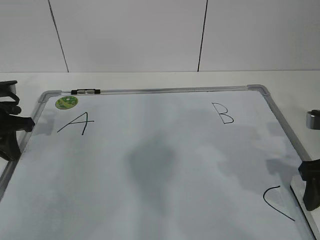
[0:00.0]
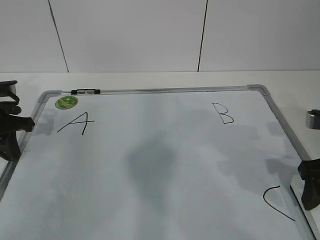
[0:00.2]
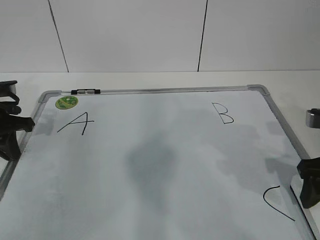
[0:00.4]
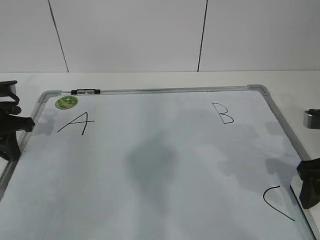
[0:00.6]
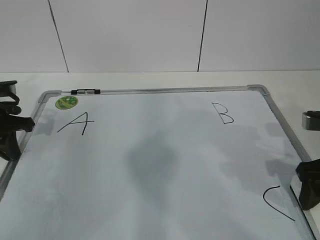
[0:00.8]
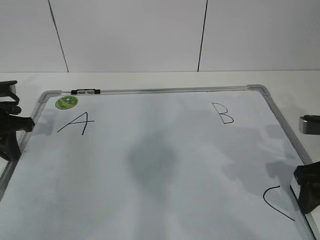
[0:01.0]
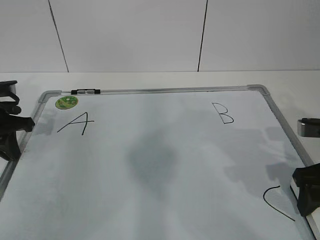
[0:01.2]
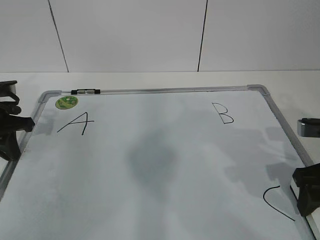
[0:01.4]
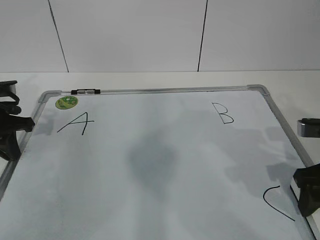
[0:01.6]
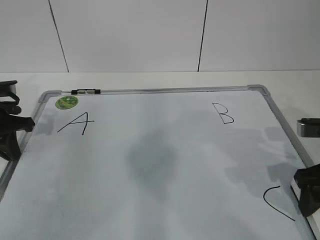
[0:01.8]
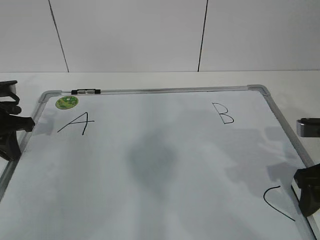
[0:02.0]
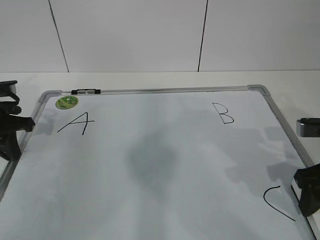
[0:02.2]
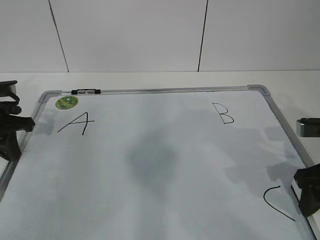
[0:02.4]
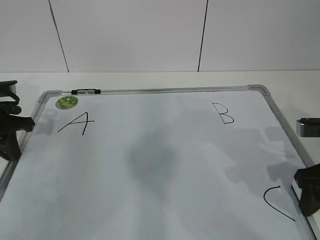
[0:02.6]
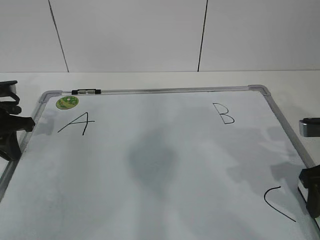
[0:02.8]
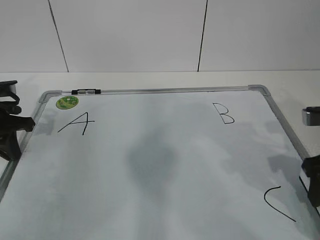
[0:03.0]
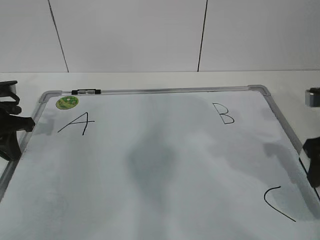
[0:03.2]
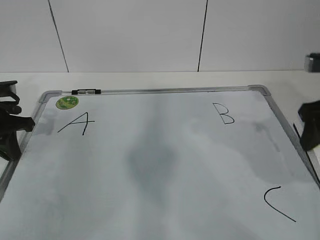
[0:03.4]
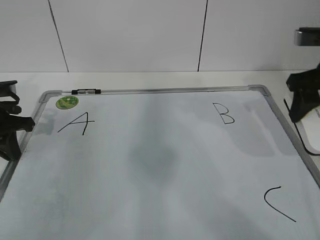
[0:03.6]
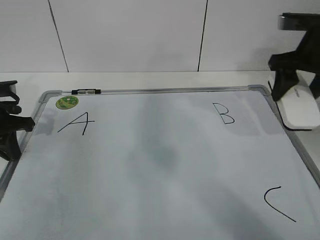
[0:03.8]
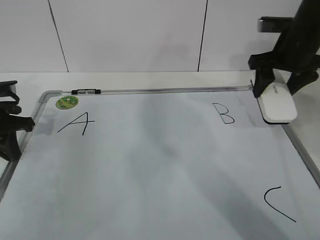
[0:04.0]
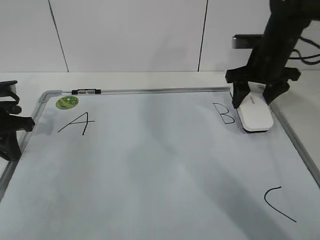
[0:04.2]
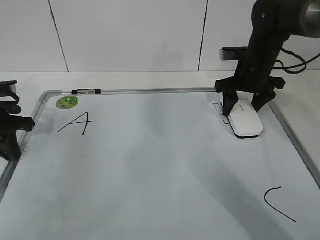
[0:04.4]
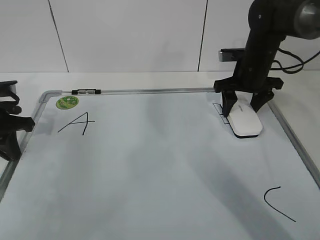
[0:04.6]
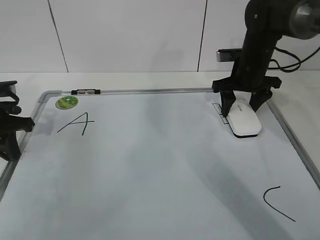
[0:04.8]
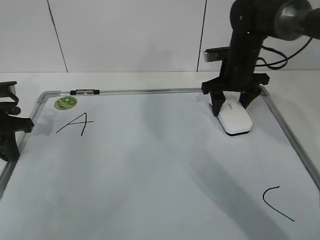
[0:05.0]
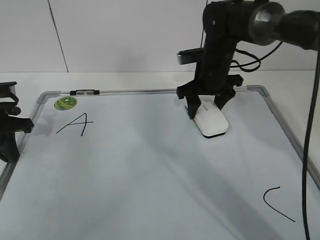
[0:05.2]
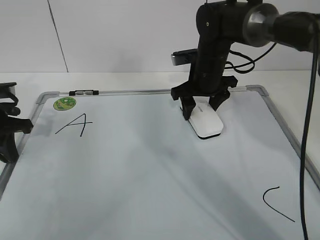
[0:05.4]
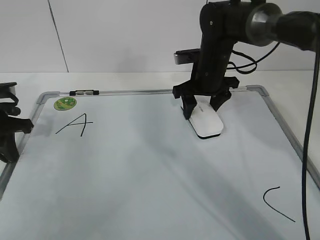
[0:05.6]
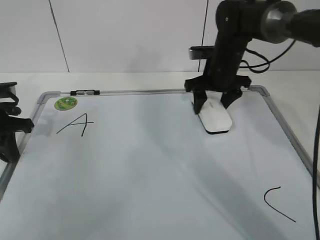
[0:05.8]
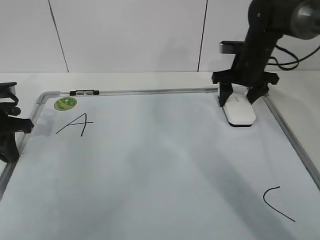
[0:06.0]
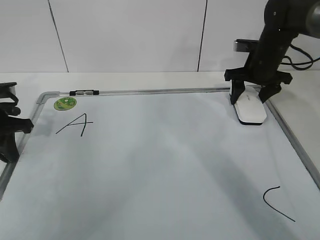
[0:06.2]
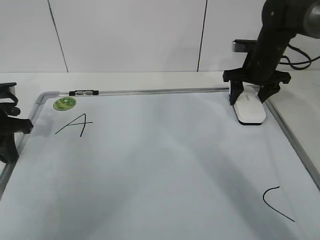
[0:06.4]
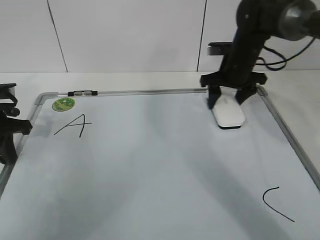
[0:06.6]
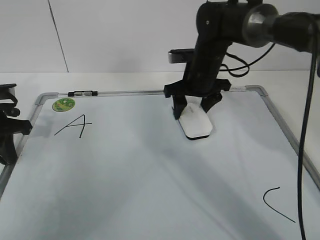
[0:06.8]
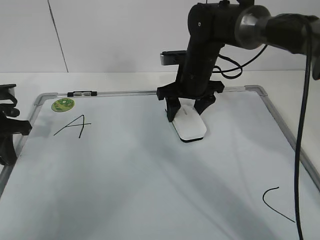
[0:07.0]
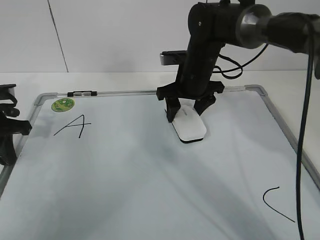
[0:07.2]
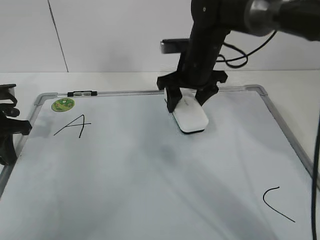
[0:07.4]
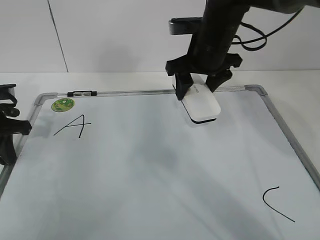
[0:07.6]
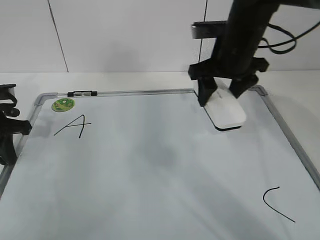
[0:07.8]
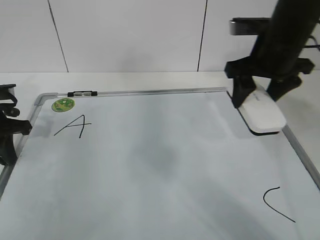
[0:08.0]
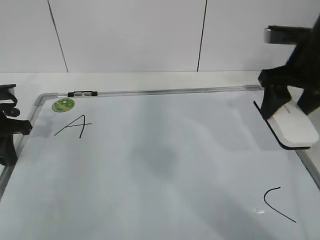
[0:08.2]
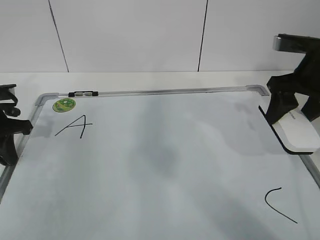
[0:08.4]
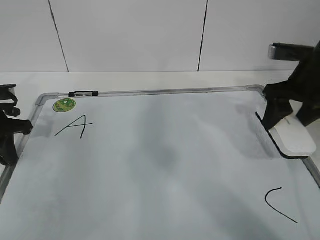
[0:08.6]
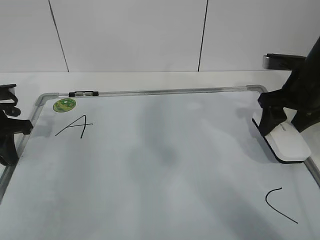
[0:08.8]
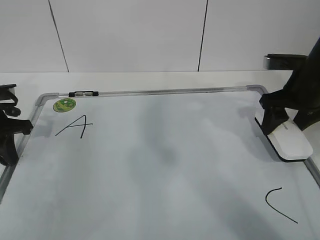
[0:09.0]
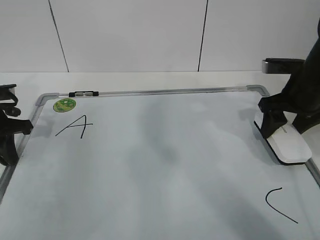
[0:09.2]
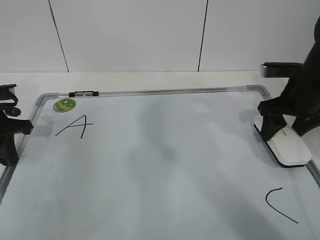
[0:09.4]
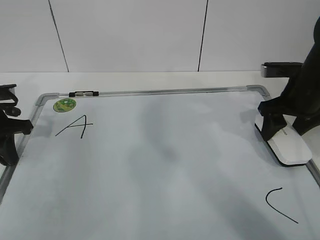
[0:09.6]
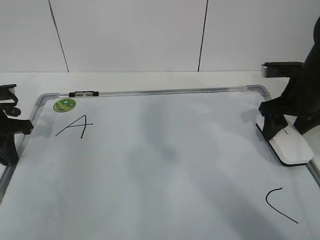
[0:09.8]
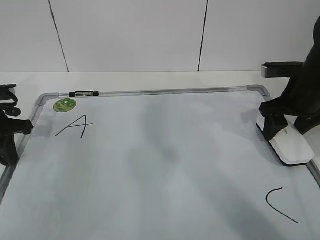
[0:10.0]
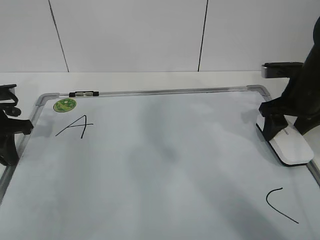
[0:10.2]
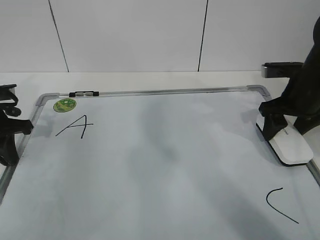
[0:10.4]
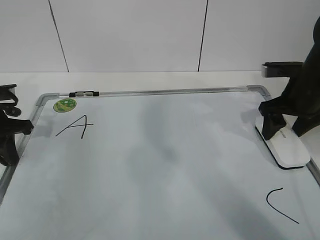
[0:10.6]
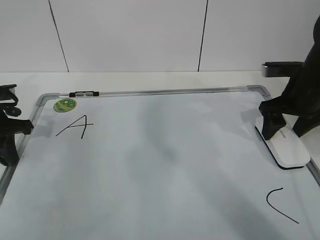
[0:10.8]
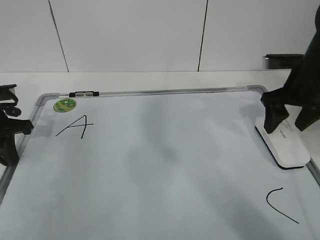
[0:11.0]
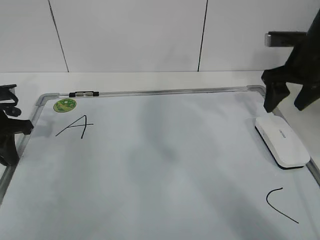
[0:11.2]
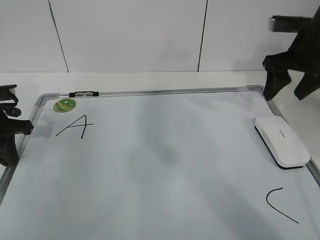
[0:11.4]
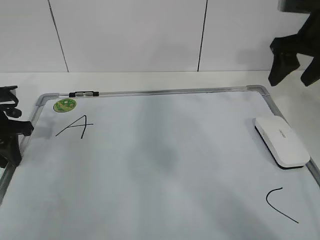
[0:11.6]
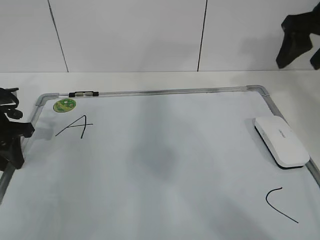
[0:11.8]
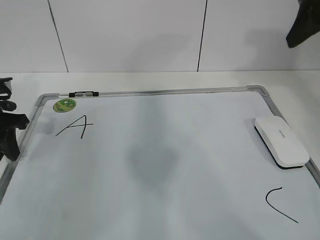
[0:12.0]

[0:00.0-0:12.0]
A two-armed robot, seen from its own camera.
Task of the whole recording: pick up the eraser on the blackboard and erase the letter "B".
Step, 0:00.8 to 0:04.4: Erase the letter B with your right hand.
Step, 0:04.6 to 0:07.2: Put down the eraser with your right hand.
0:00.0 to 0:03.0: The grippers stay close to where they were, moving slightly.
0:03.0 to 0:04.4: The right gripper heads forward, covering roughly 20 cm.
0:04.4 to 0:06.0: The right gripper moves some 10 cm to the left and comes back.
0:06.0 to 0:07.6: The right gripper travels to the left, upward and backward by approximately 15 cm.
0:07.6 to 0:09.0: The right gripper moves to the right, approximately 15 cm.
0:09.0 to 0:10.4: The grippers stay close to where they were, moving slightly.
0:10.4 to 0:12.0: The right gripper travels upward by roughly 20 cm, while the left gripper opens up.

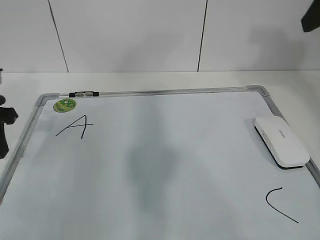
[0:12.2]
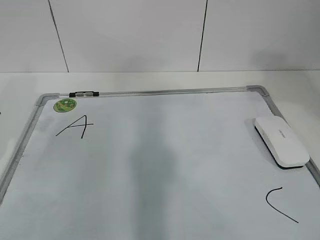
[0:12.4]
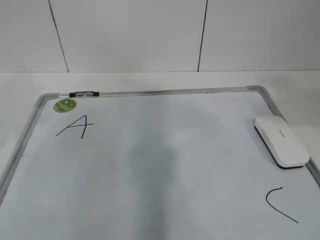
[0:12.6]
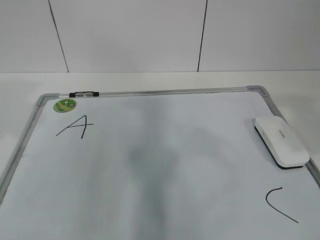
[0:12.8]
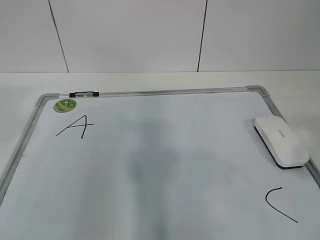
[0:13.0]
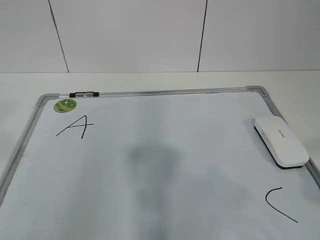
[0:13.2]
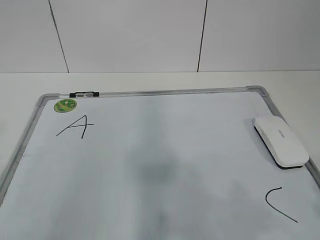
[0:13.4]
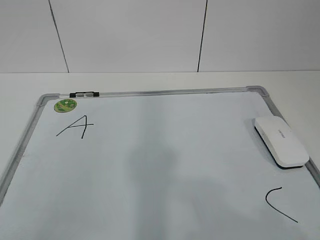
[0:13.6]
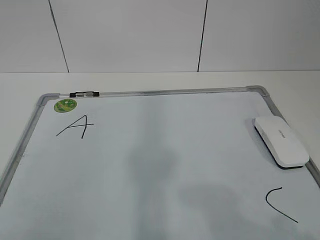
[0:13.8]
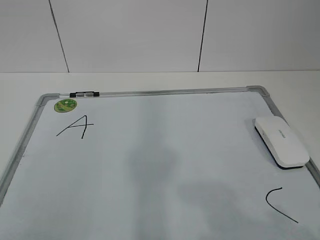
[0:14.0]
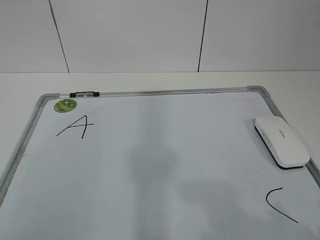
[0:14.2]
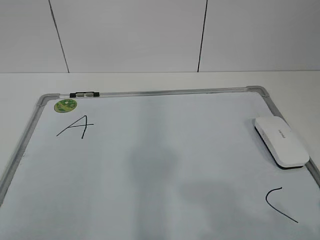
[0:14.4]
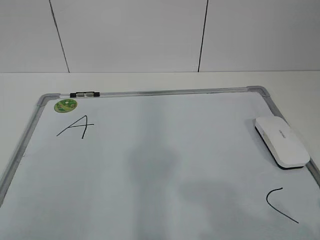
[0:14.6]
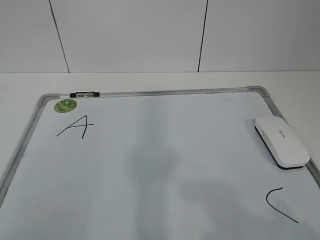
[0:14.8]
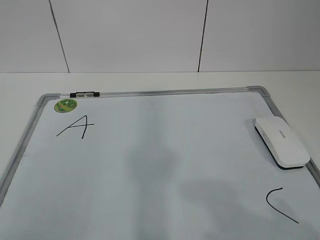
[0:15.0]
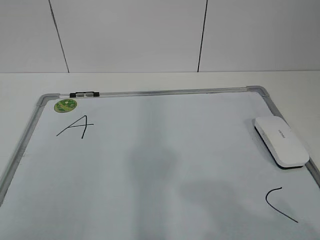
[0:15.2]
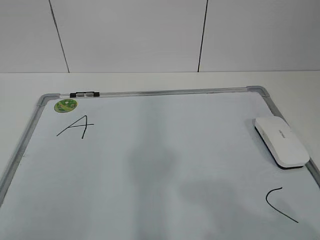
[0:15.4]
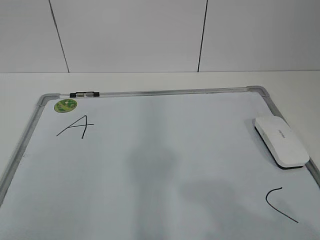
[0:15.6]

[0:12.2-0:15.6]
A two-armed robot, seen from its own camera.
Task of the whole recording: pick up the eraser on the blackboard and erase the letter "B".
0:12.2 to 0:13.8: The right gripper moves backward and downward, approximately 35 cm. Meanwhile the left gripper shifts about 35 cm backward.

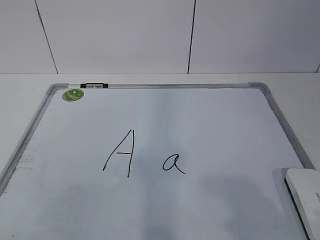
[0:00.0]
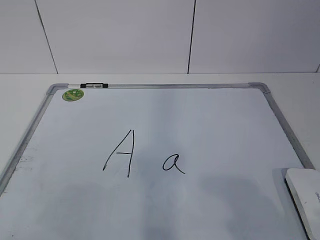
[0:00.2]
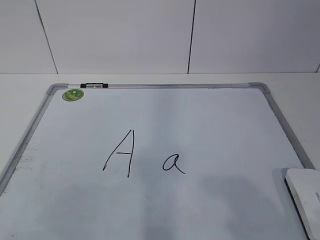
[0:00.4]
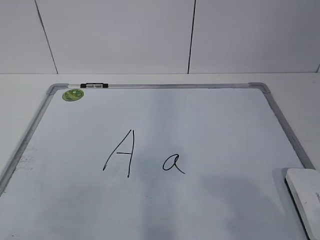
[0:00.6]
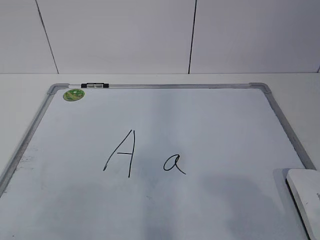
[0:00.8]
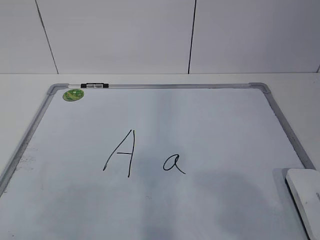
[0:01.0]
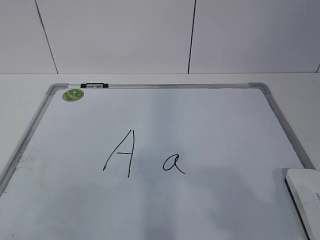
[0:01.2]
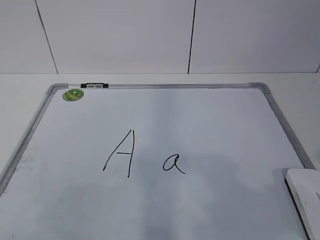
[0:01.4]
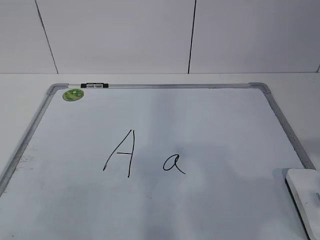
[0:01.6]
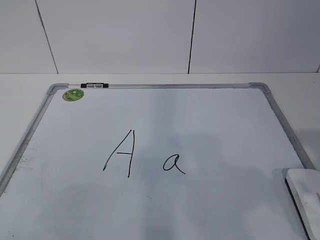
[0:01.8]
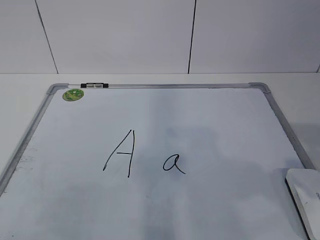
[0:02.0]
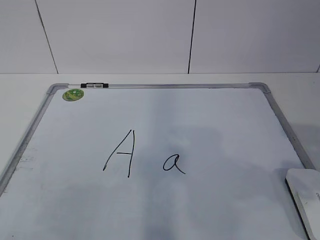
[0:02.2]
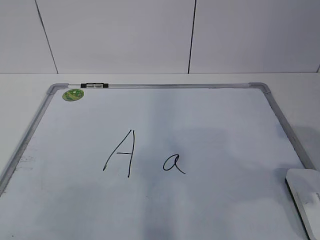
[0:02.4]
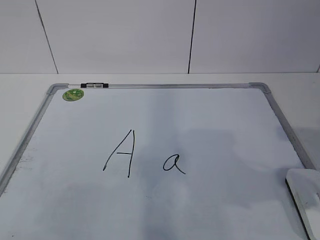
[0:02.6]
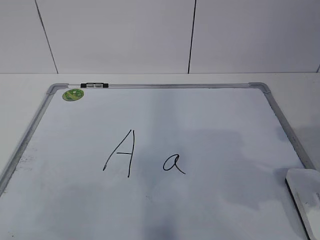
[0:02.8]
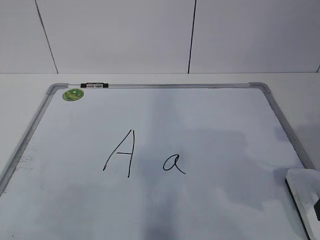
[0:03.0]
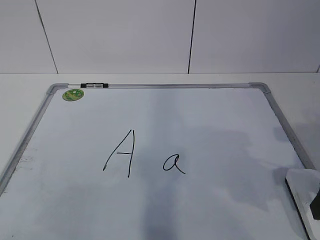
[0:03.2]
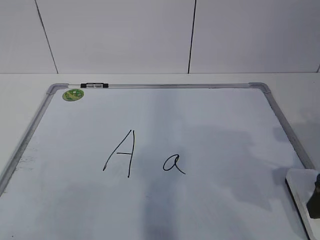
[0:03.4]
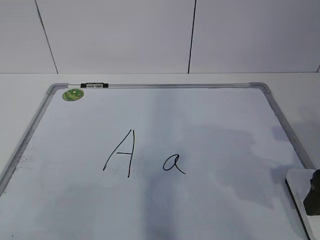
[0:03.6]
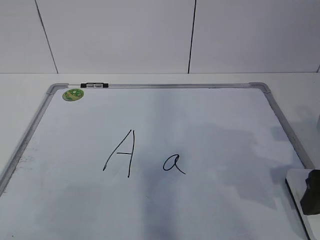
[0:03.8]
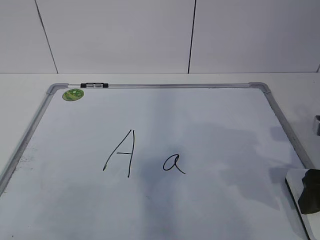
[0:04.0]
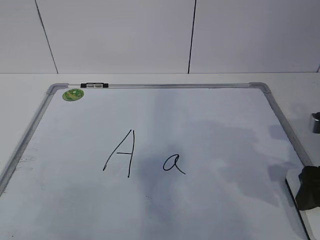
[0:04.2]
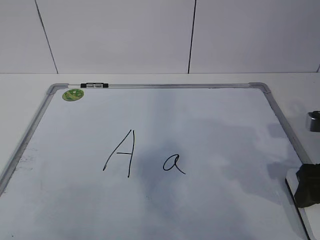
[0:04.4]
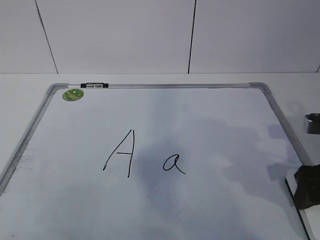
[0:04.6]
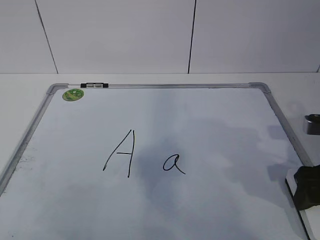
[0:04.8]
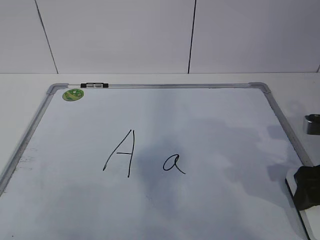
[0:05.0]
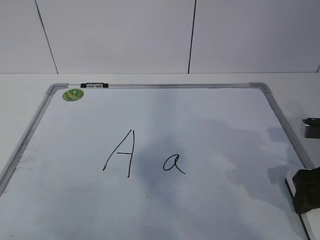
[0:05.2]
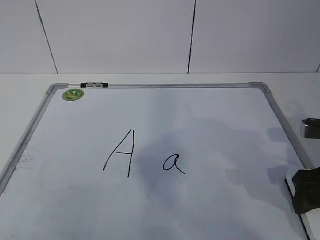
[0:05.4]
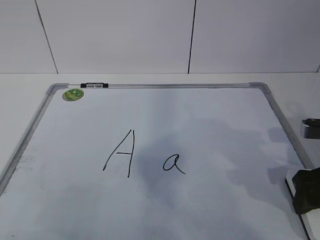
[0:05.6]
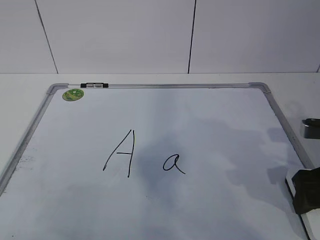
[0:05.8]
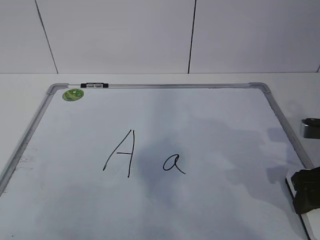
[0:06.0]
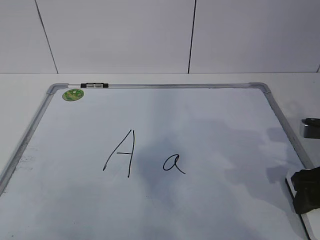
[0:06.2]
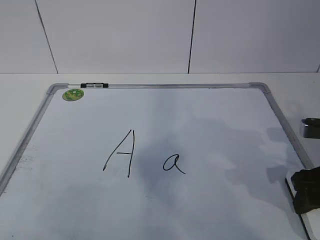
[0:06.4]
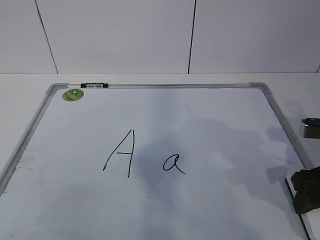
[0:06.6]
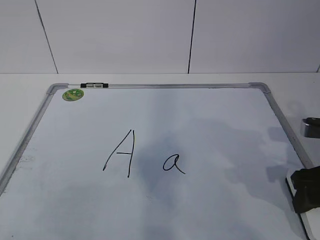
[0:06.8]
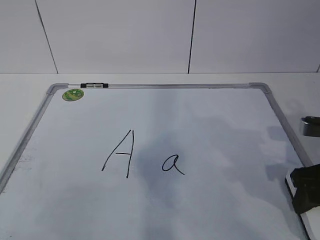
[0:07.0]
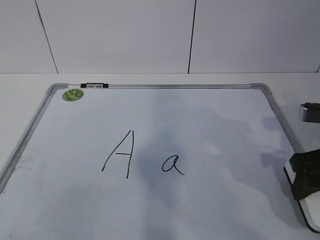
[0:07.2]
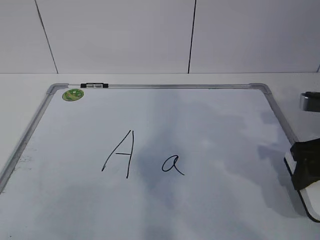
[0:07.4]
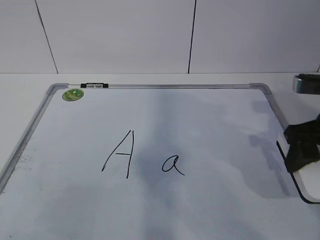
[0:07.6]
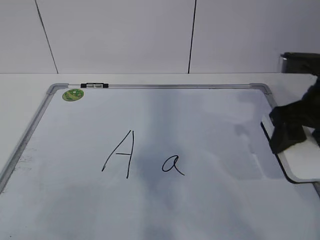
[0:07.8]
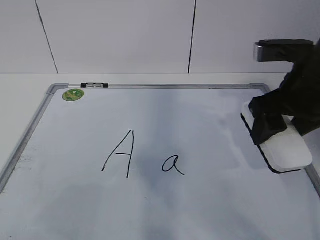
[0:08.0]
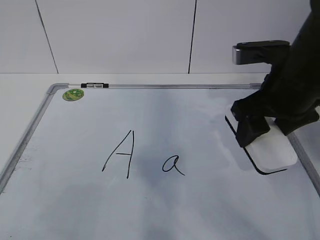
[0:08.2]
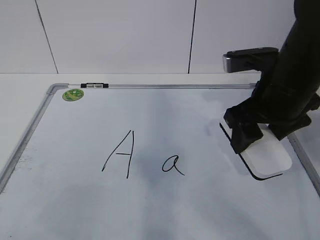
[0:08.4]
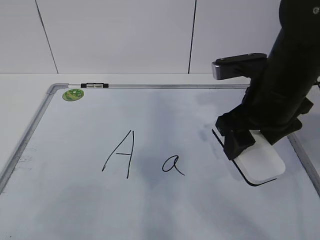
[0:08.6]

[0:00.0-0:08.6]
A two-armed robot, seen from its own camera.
Task of the whole recording: pick up the eraser on the blackboard and erase the letter "a".
0:01.4 to 0:02.8: The right gripper heads forward, covering roughly 15 cm, and opens up.
0:02.8 to 0:04.4: The right gripper is displaced forward and downward by some 10 cm.
0:05.8 to 0:07.2: The right gripper closes its fingers.
0:07.2 to 0:08.6: The right gripper goes some 15 cm to the left and upward.
